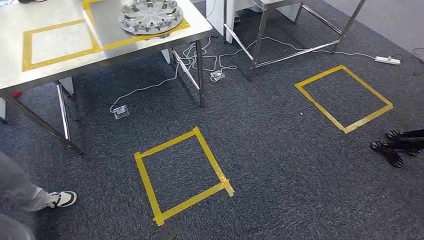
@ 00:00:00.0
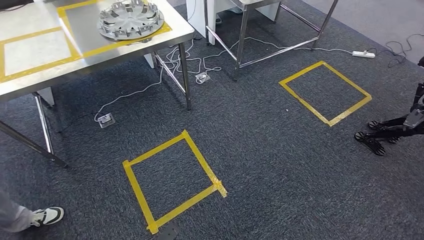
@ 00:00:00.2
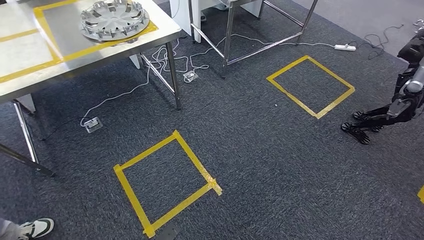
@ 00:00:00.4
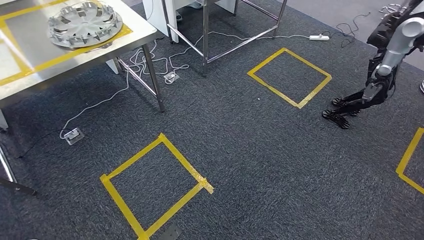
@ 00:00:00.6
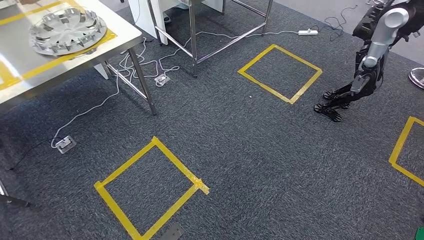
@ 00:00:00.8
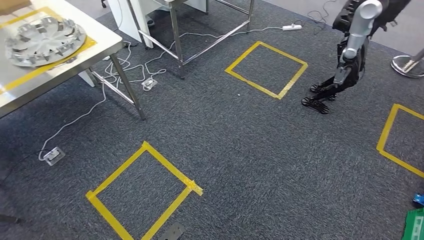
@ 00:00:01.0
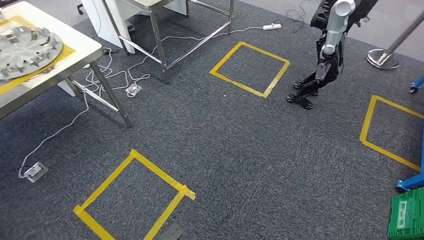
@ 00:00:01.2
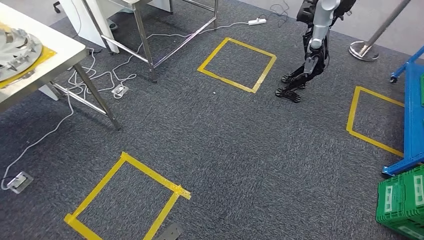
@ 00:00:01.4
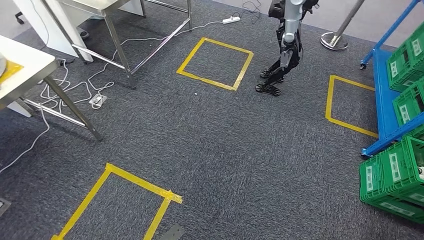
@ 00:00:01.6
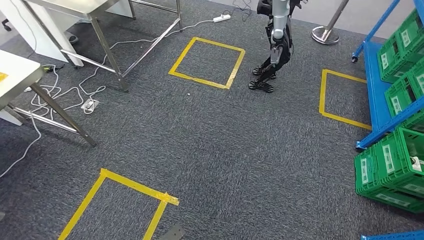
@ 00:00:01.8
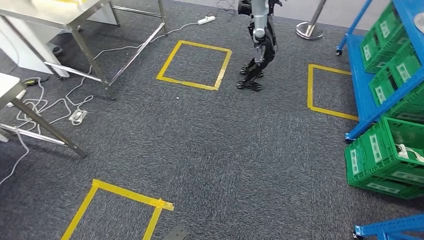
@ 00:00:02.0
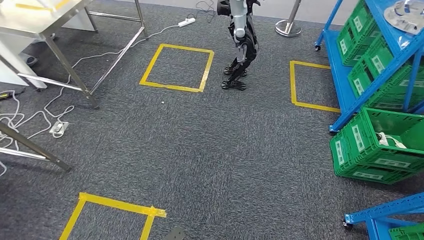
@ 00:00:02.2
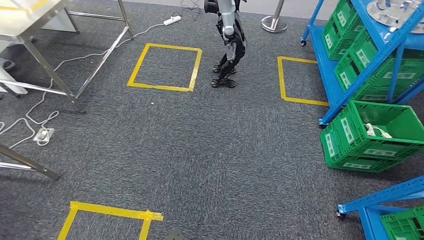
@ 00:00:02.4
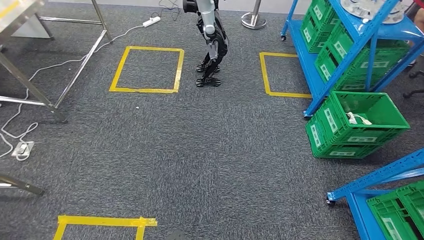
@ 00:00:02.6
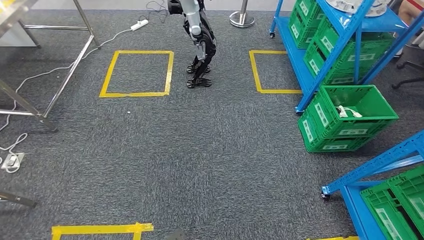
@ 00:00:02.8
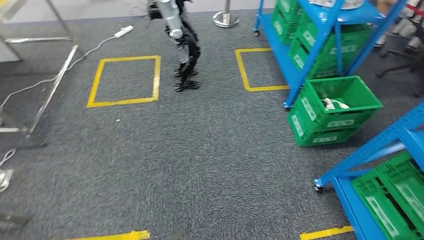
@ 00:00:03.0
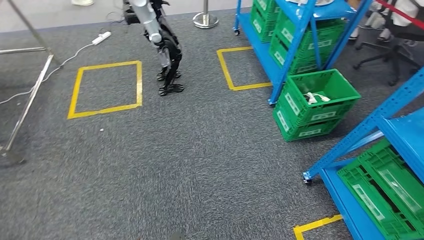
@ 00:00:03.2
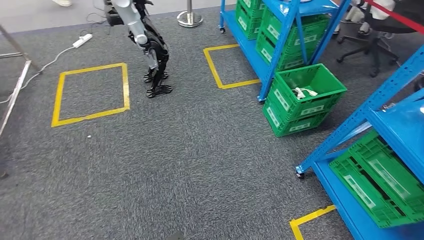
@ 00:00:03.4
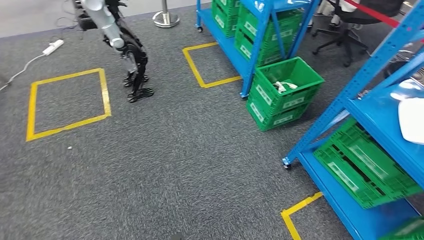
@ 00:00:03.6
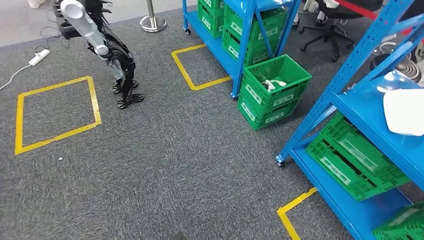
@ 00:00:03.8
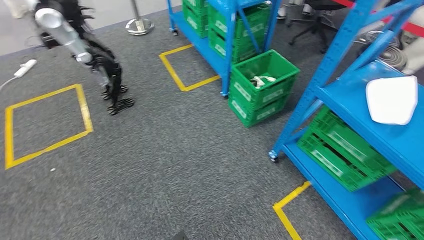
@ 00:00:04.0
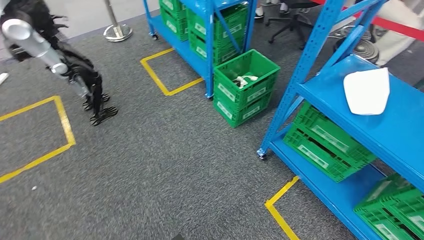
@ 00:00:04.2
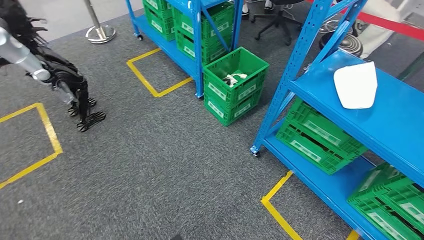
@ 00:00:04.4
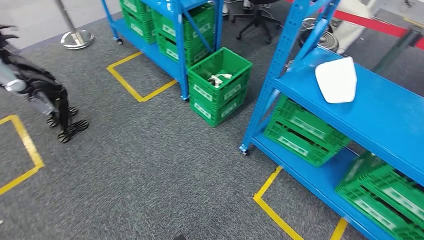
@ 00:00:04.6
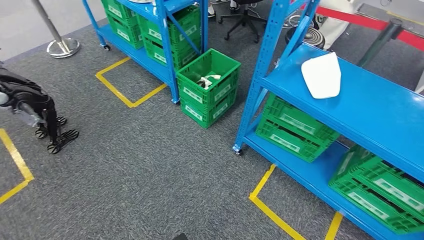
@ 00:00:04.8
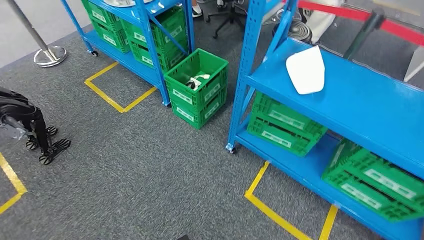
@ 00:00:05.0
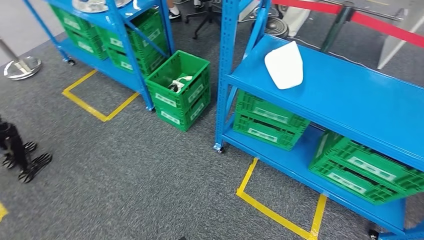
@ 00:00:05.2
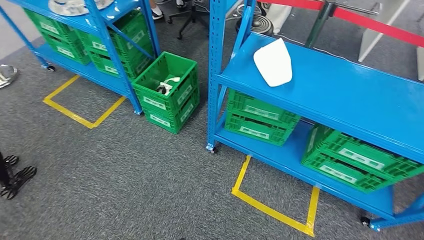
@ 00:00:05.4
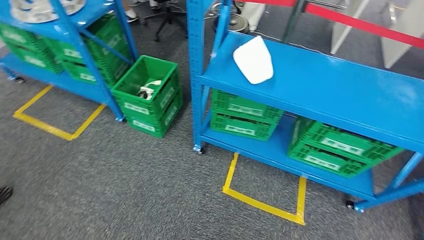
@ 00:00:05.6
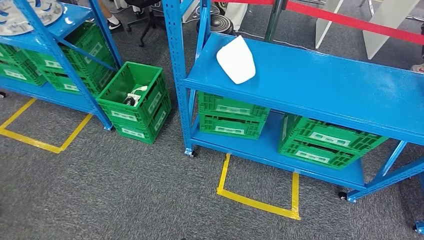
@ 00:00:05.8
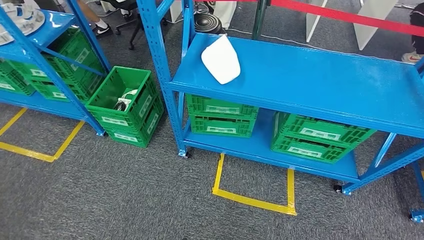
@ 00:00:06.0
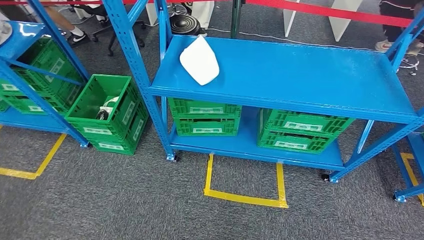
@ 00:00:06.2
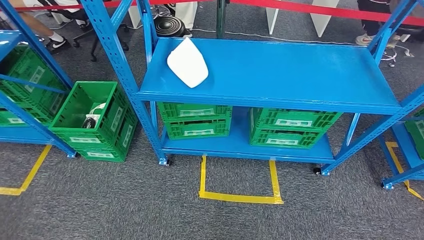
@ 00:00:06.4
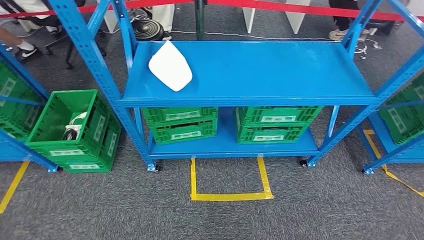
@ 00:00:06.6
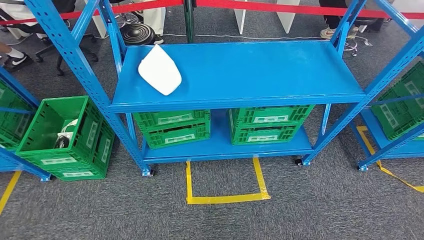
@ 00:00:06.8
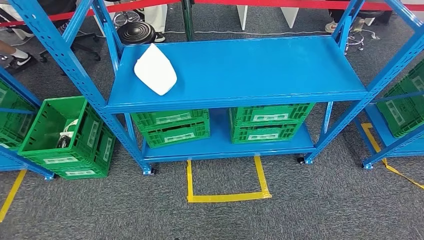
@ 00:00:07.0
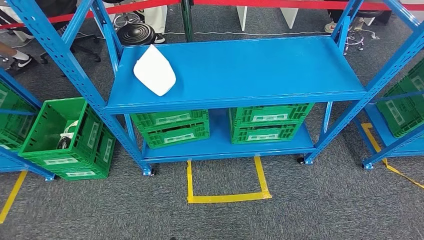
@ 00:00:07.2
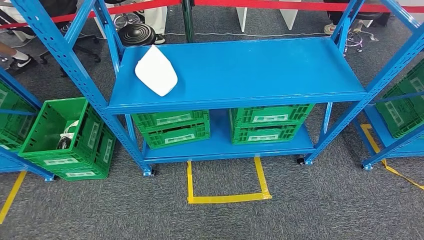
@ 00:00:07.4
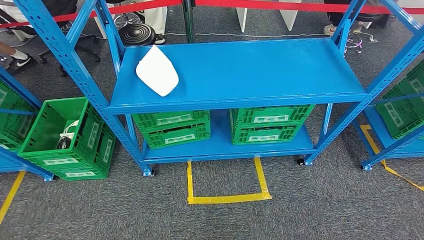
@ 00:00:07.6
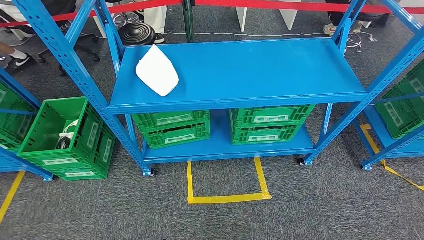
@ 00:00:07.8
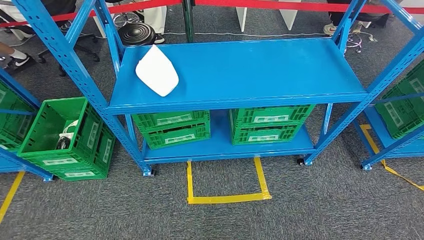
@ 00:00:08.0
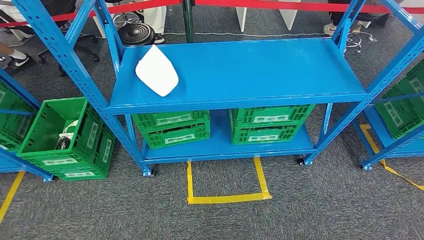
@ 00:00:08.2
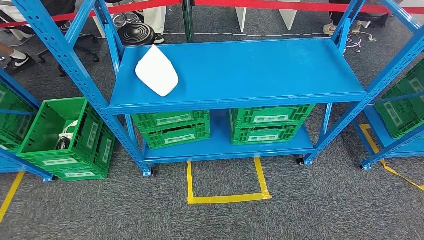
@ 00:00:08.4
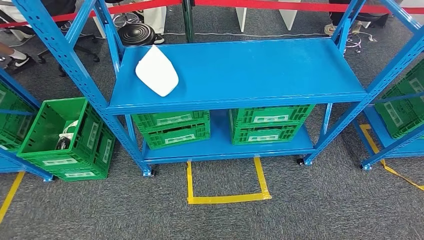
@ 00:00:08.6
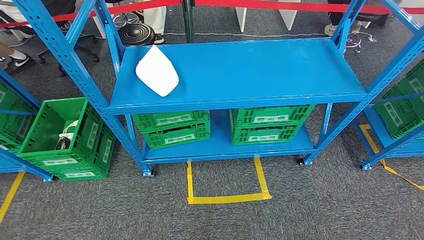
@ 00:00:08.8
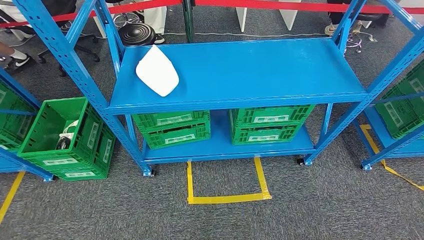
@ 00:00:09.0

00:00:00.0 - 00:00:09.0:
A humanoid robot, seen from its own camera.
Step, 00:00:00.0 - 00:00:09.0: Move to the initial position at the workbench.
